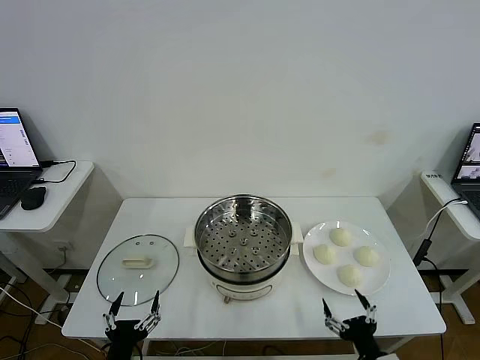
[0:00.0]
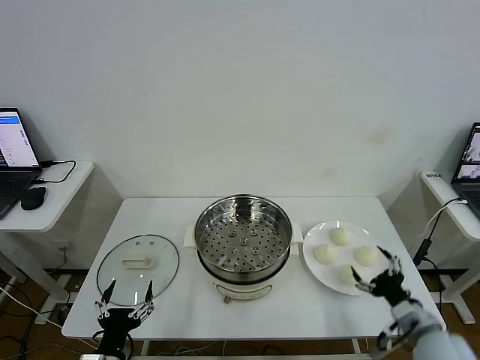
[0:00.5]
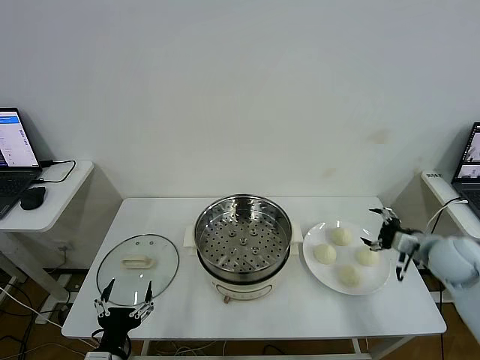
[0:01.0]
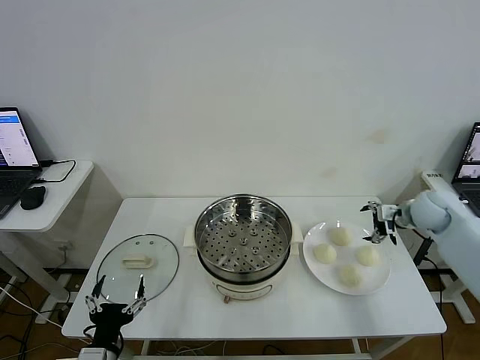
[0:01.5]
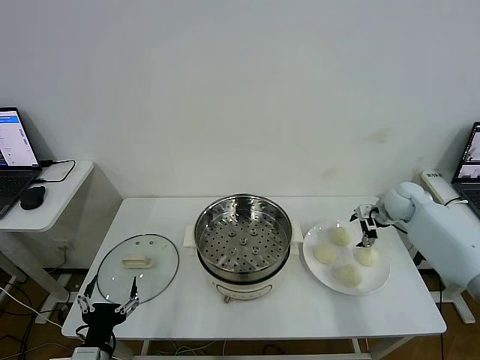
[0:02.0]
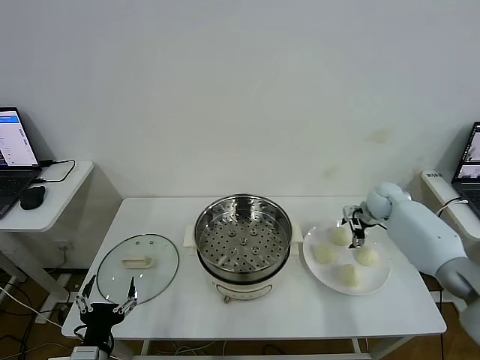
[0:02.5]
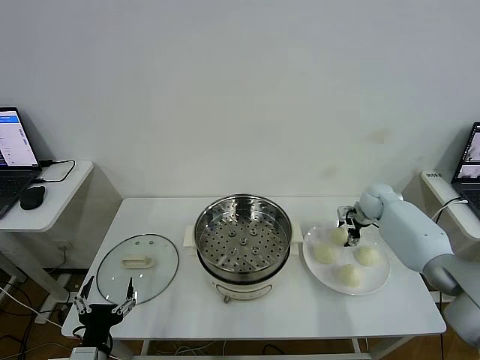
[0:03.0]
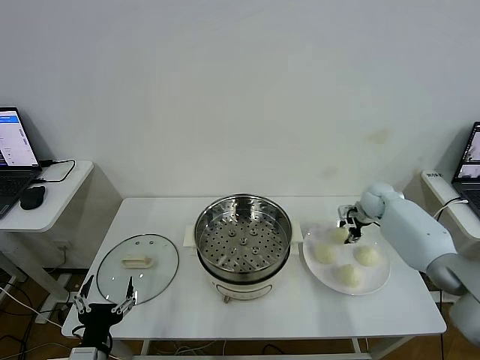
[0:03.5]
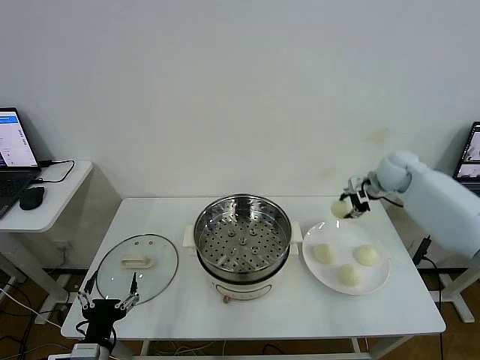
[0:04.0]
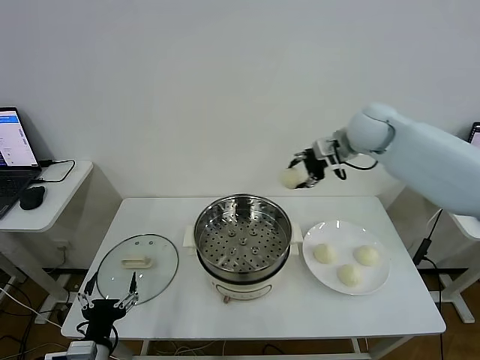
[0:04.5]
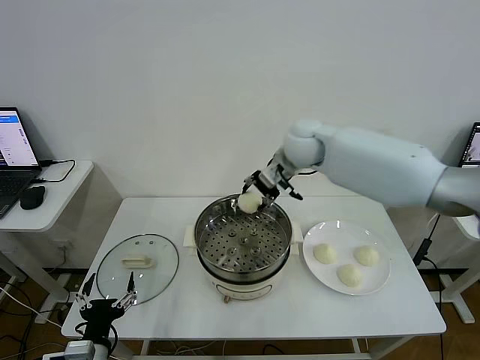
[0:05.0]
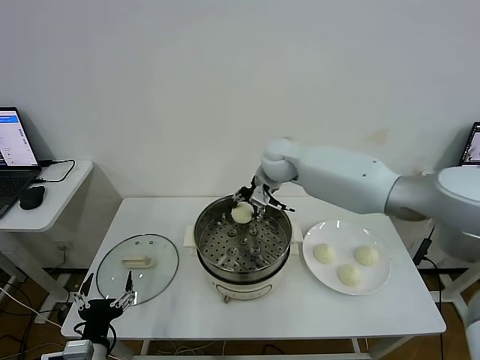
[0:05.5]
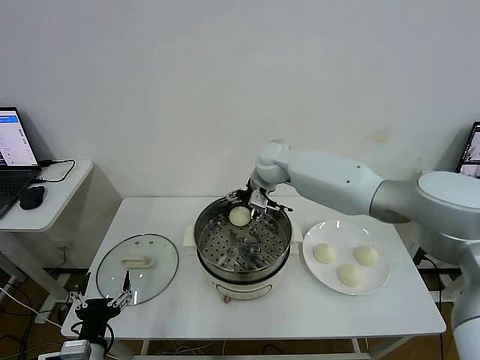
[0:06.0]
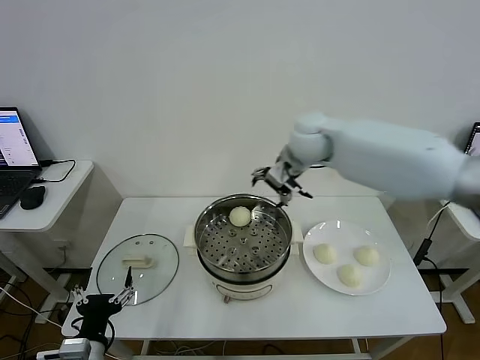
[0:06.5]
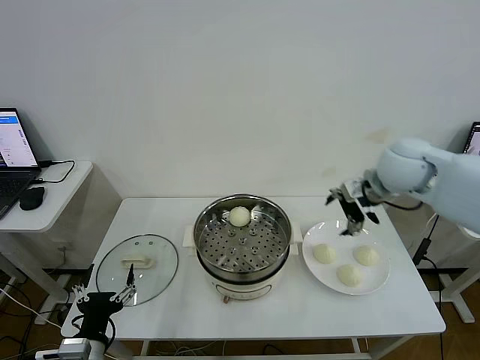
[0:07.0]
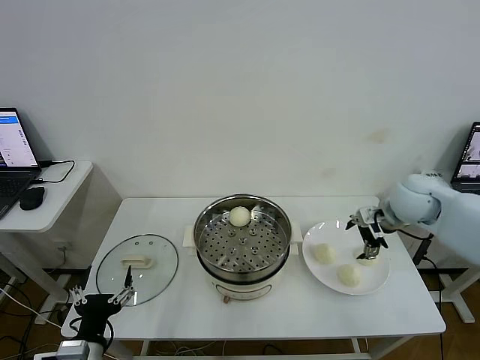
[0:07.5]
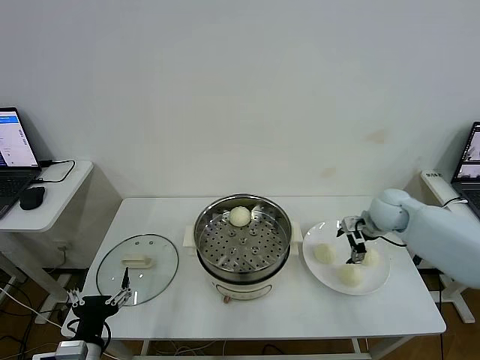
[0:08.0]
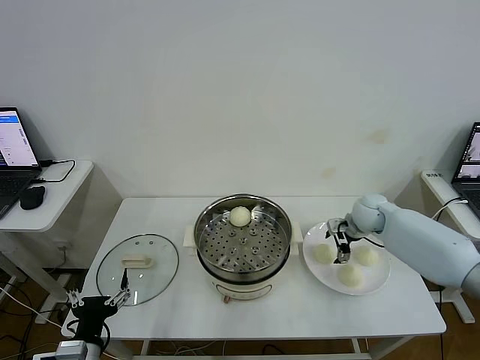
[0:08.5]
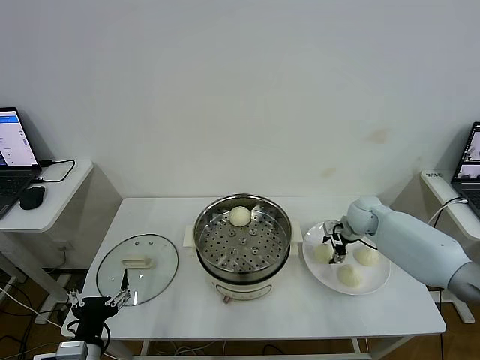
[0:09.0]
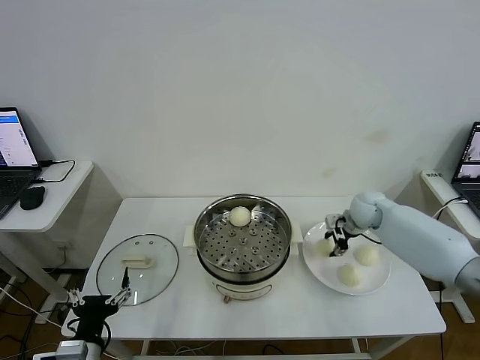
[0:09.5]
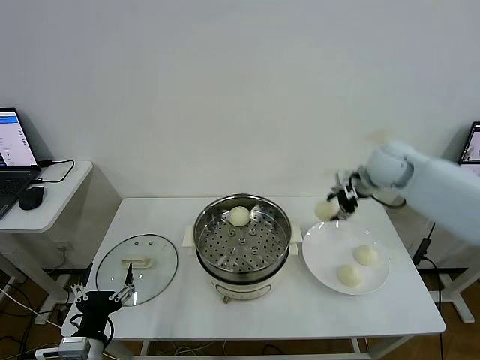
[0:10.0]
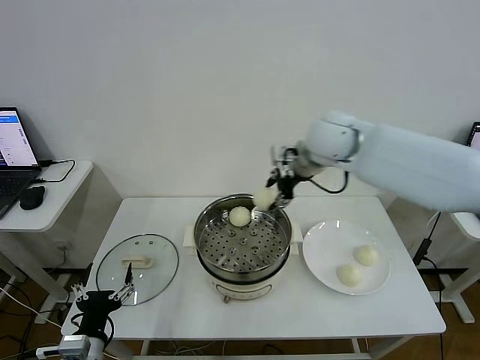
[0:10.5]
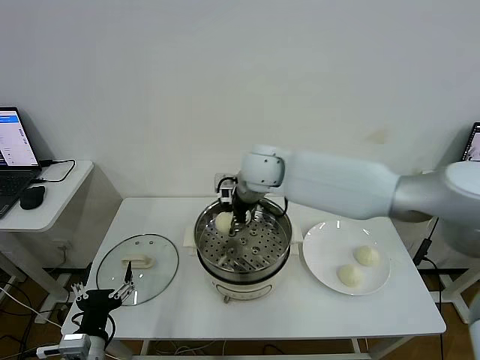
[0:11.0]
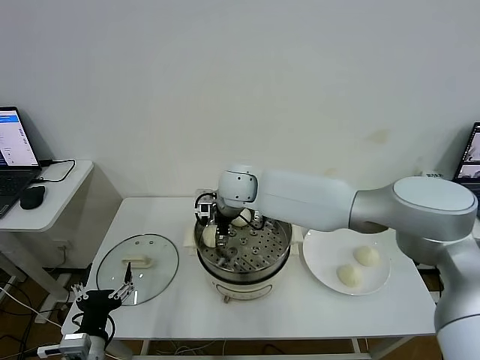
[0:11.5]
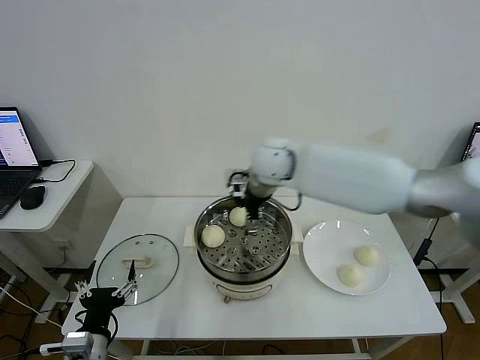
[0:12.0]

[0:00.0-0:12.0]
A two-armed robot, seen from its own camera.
Step, 0:00.0 to 0:03.0: Grasp the baozi in the plate with right gripper.
Step, 0:03.5 to 0:06.0: Place the baozi on the steamer with right gripper.
Step, 0:06.5 to 0:09.0: Grasp the baozi in the plate with right gripper.
Step, 0:09.5 to 0:11.5: Place the baozi on the steamer with right gripper.
0:02.0 to 0:04.0: The right gripper travels upward and to the left by roughly 15 cm, and closes its fingers.
0:04.0 to 0:06.0: The right gripper heads to the left, covering approximately 25 cm, and opens its fingers.
0:06.0 to 0:08.0: The right gripper heads to the right and downward, covering about 30 cm.
0:08.0 to 0:10.0: The right gripper travels upward by roughly 15 cm, and closes.
0:10.0 to 0:12.0: The right gripper shifts about 20 cm to the left, and opens its fingers.

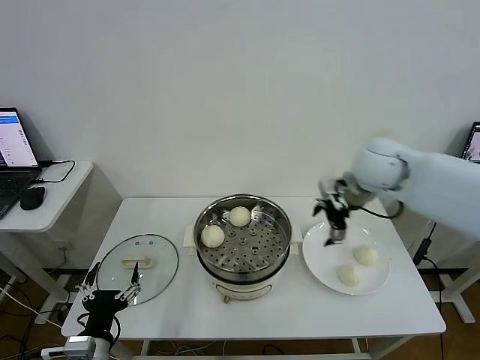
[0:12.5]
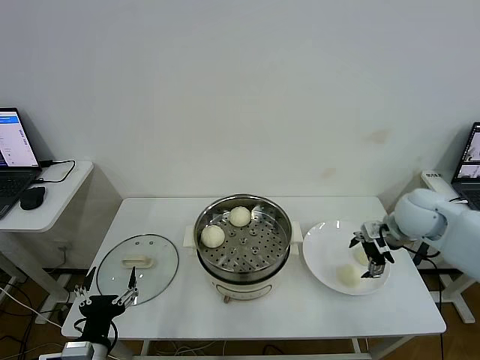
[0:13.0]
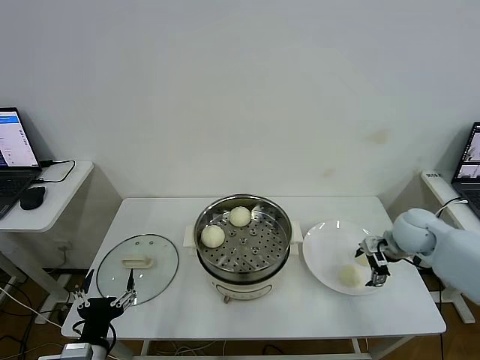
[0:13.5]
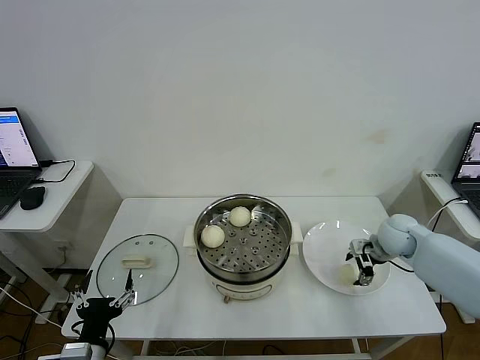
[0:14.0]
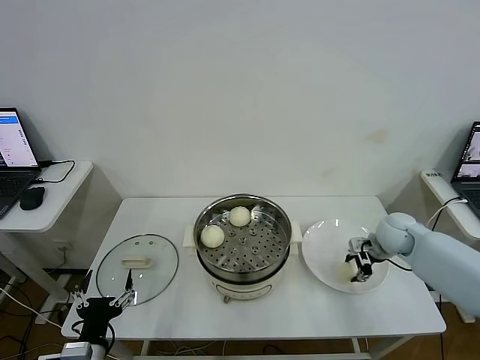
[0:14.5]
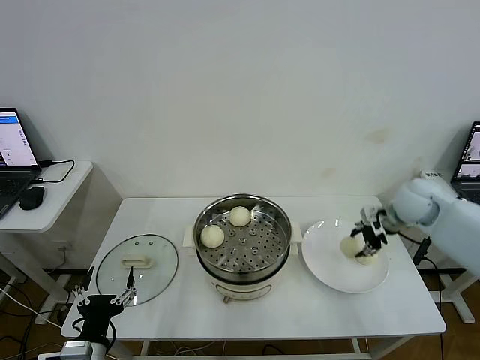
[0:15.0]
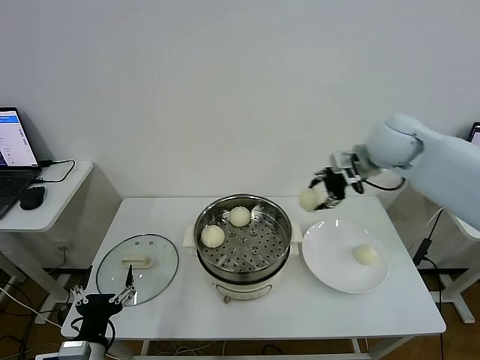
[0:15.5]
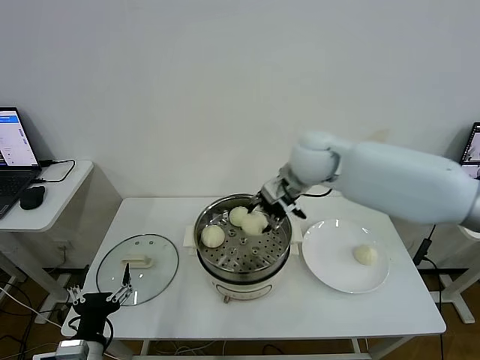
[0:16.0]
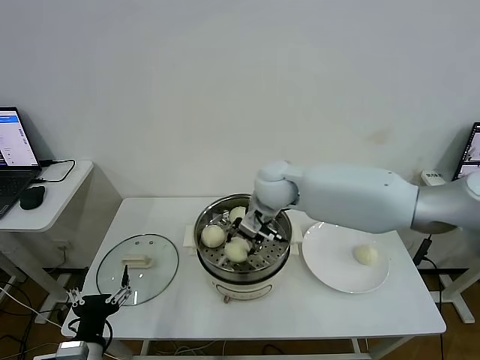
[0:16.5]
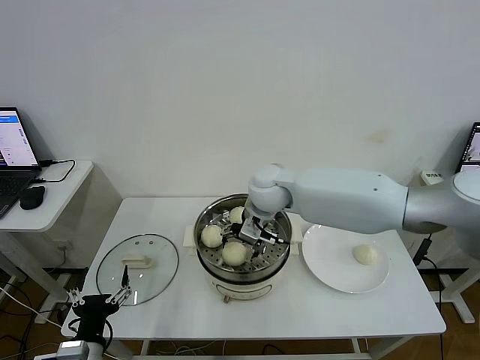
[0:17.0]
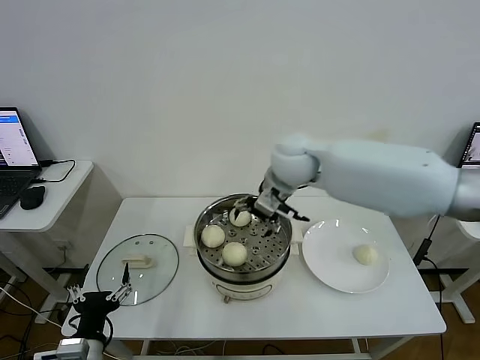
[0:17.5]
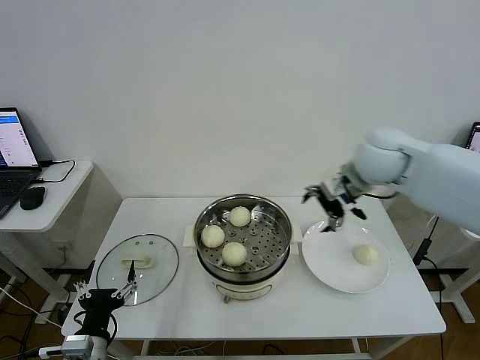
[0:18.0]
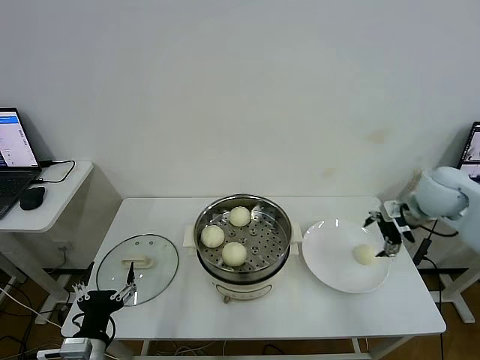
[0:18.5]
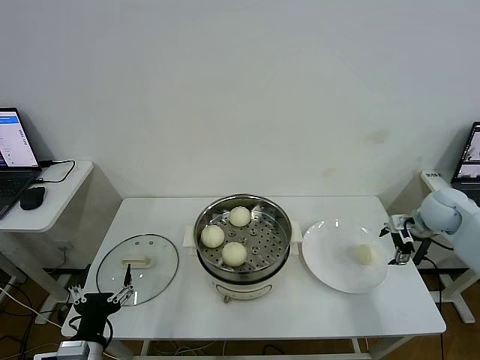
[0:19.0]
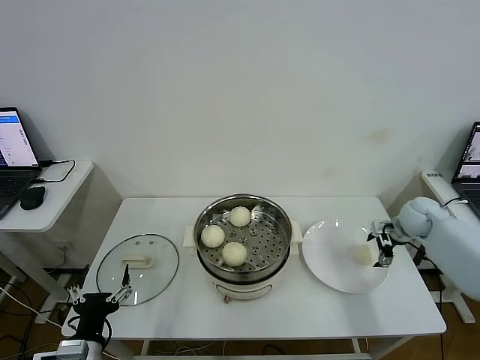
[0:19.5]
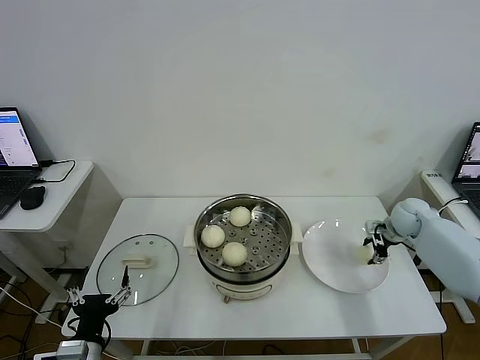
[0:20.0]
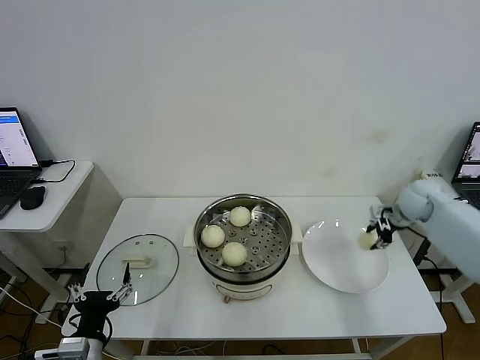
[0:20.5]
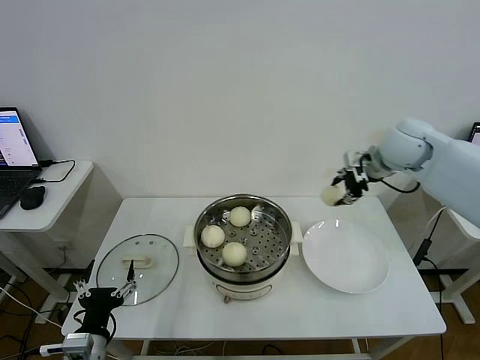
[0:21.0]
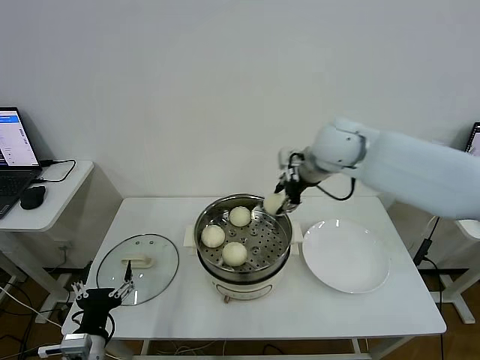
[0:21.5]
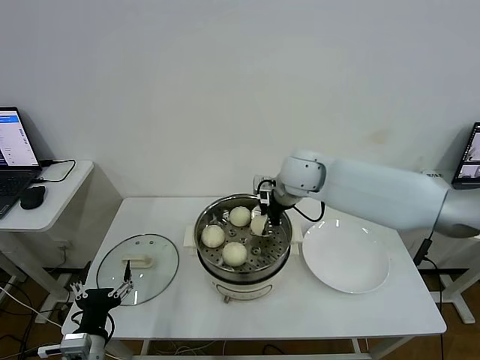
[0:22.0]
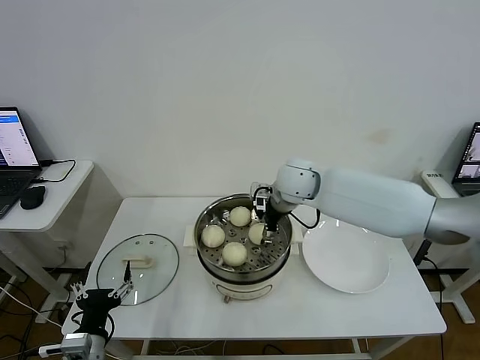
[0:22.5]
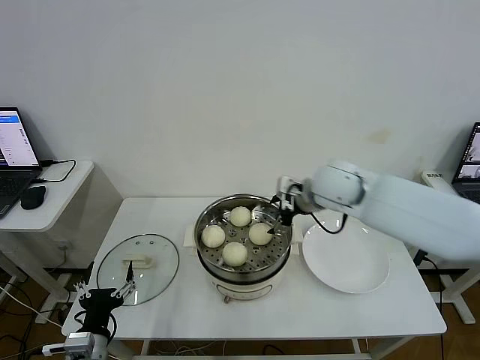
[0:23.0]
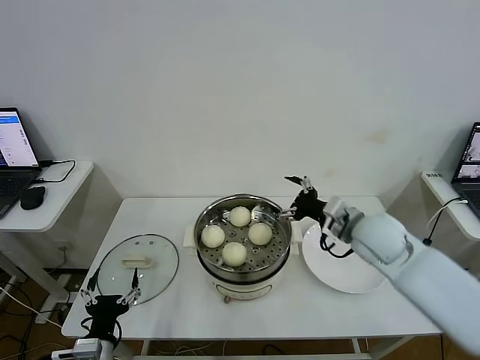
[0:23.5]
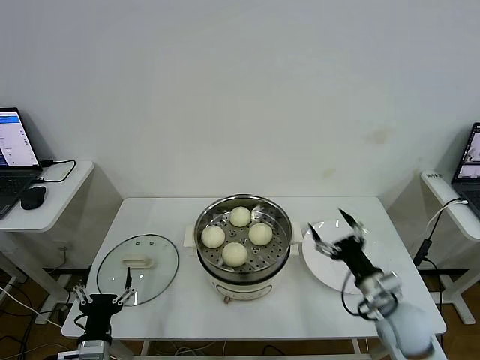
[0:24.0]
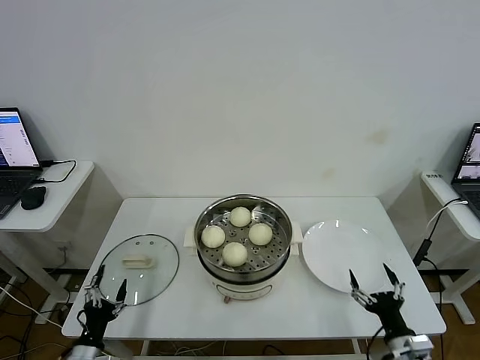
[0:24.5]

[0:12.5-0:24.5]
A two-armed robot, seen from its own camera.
Step, 0:12.5 to 0:14.0: Grasp the baozi in the plate with right gripper.
Step, 0:14.5 to 0:17.0: Place the baozi on the steamer with right gripper.
Step, 0:17.5 to 0:19.5: Grasp the baozi in the plate with right gripper.
Step, 0:20.5 to 0:22.5: Place the baozi on the steamer with right gripper.
0:12.5 to 0:14.5: The right gripper heads downward and to the right, covering approximately 20 cm, and closes up.
0:14.5 to 0:16.5: The right gripper travels to the left and upward by some 35 cm.
0:16.5 to 0:18.5: The right gripper travels to the right by approximately 35 cm, and opens up.
0:18.5 to 0:20.5: The right gripper shifts roughly 10 cm downward and forward, and closes its fingers.
0:20.5 to 0:22.5: The right gripper moves to the left, about 30 cm, and opens its fingers.
0:22.5 to 0:24.5: The left gripper is displaced downward and to the left by approximately 10 cm, while the right gripper is displaced backward, downward and to the right by approximately 50 cm.

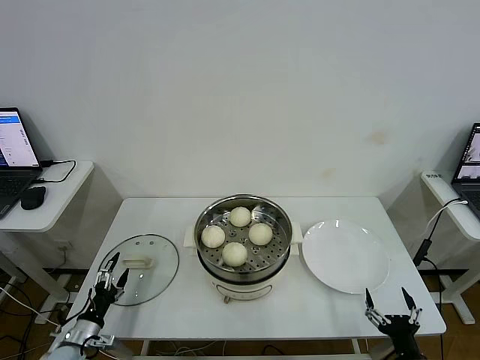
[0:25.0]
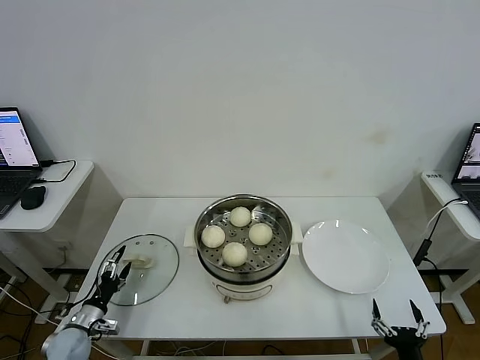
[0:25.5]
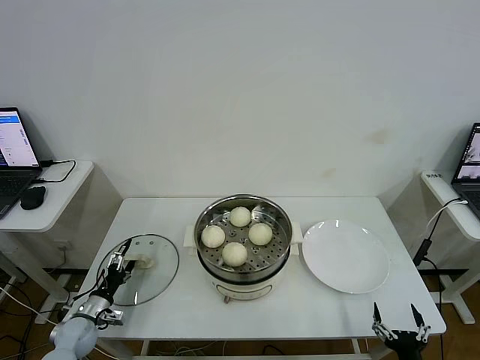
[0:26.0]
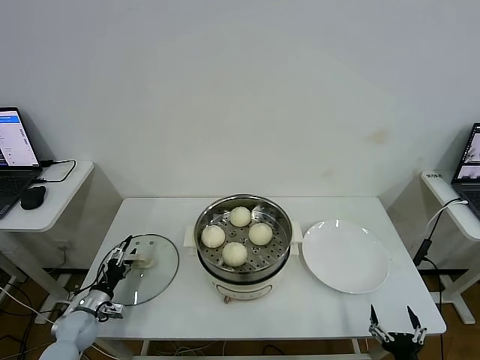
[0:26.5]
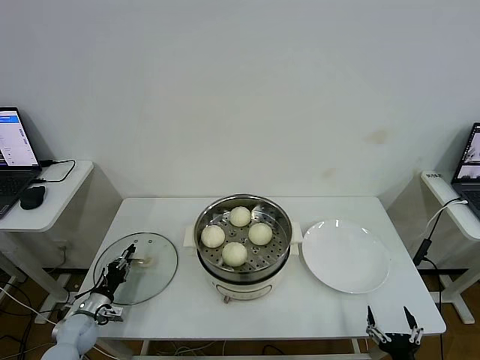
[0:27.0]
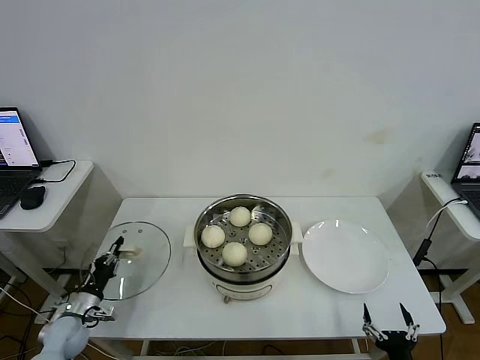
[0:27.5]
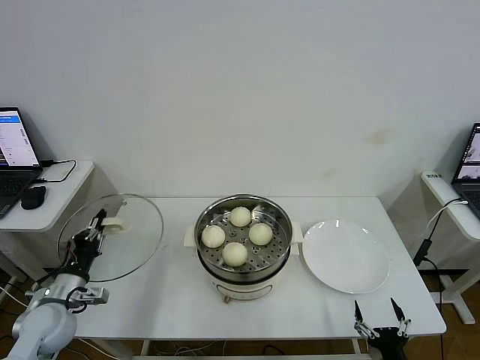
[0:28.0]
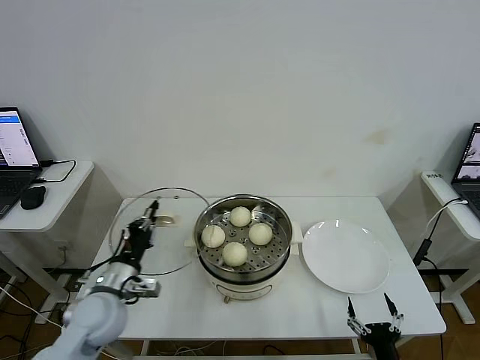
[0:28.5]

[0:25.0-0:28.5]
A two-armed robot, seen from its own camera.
Step, 0:25.0 to 0:27.0: Grasp the pot lid with left gripper.
0:25.0 to 0:27.0: The left gripper goes about 10 cm forward, and closes its fingers.
0:27.0 to 0:28.5: The left gripper is displaced upward and to the right by roughly 25 cm.
